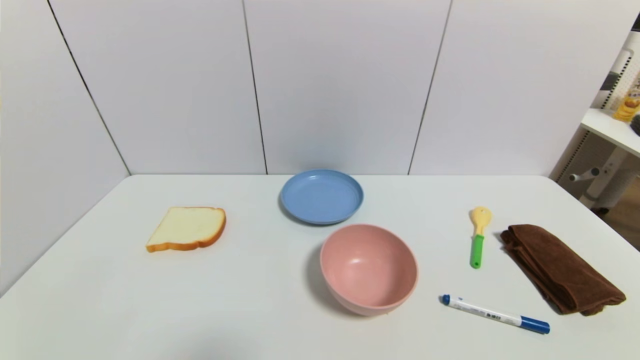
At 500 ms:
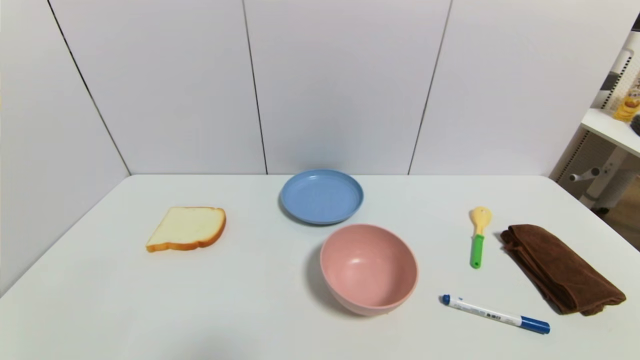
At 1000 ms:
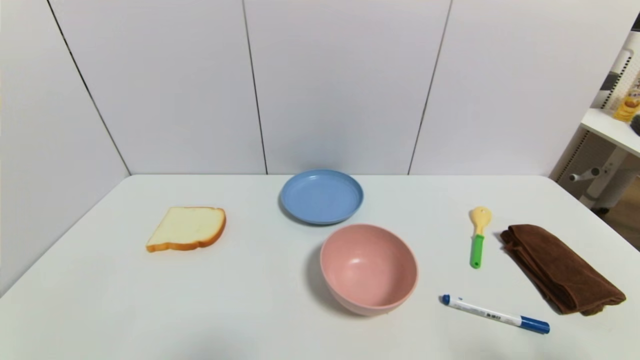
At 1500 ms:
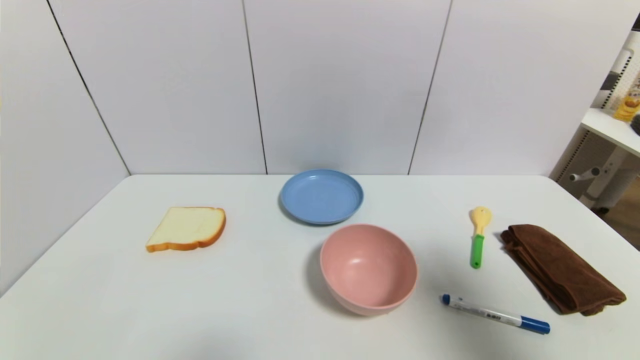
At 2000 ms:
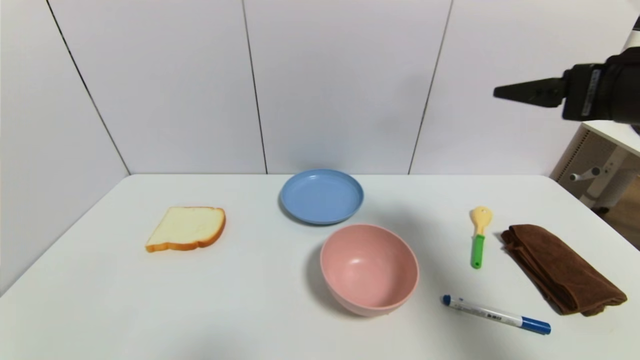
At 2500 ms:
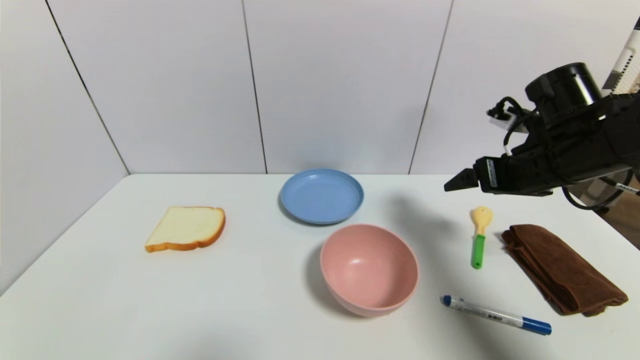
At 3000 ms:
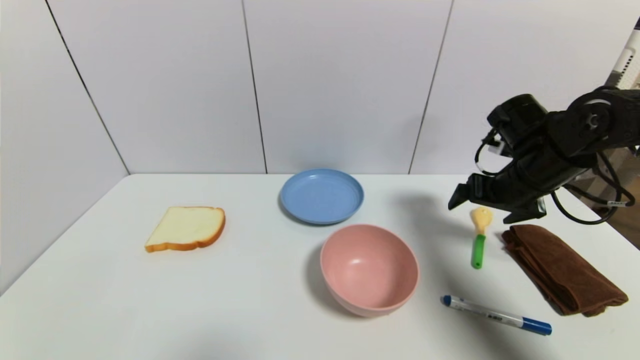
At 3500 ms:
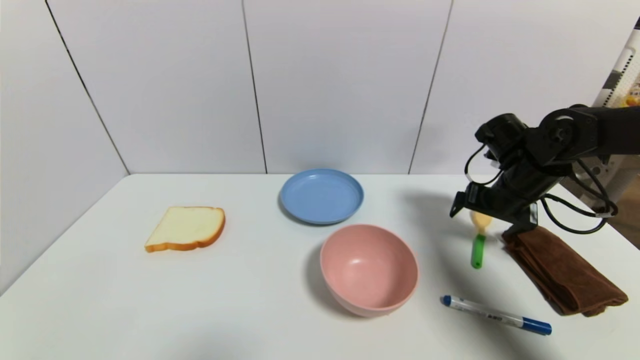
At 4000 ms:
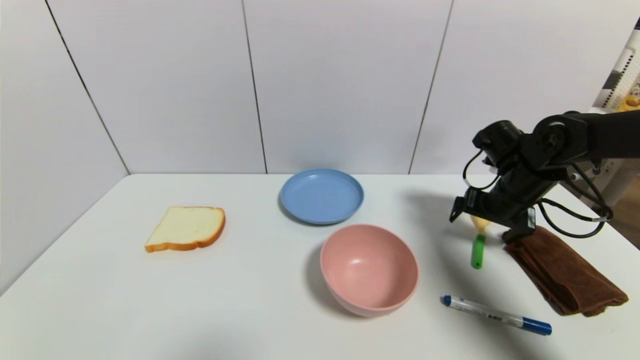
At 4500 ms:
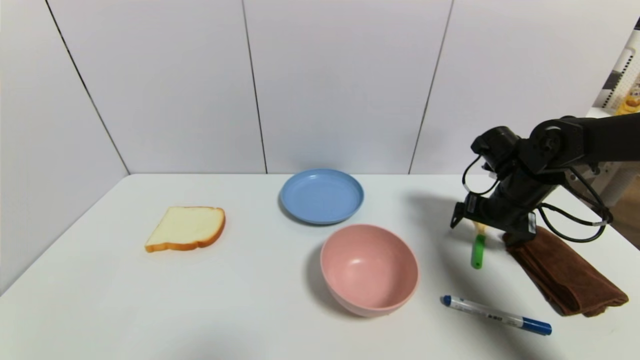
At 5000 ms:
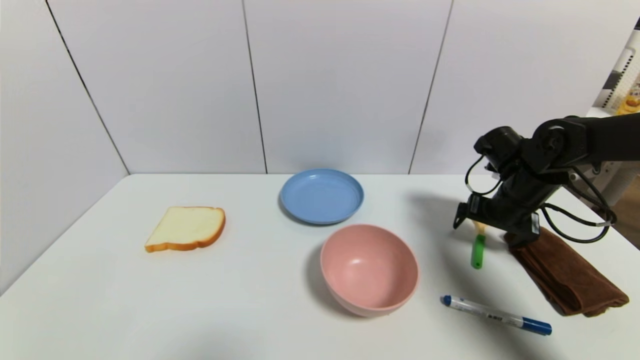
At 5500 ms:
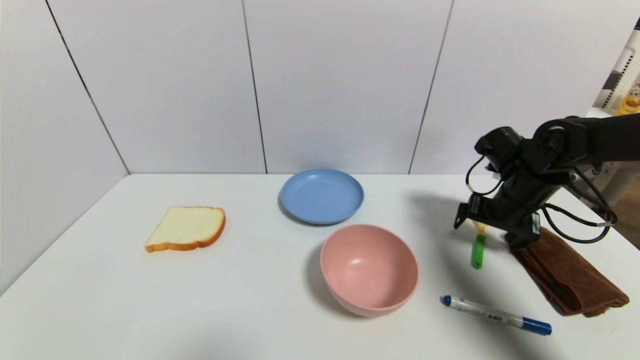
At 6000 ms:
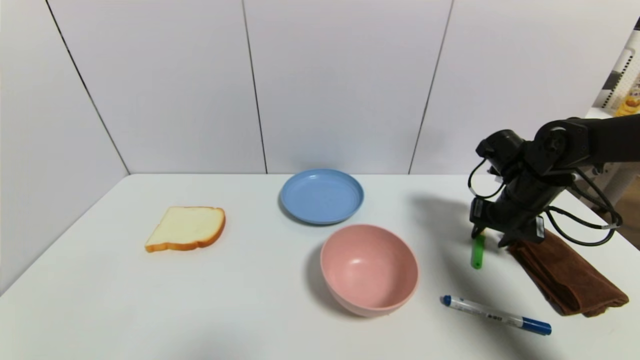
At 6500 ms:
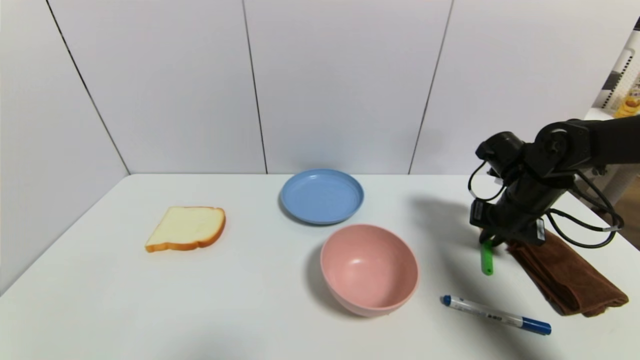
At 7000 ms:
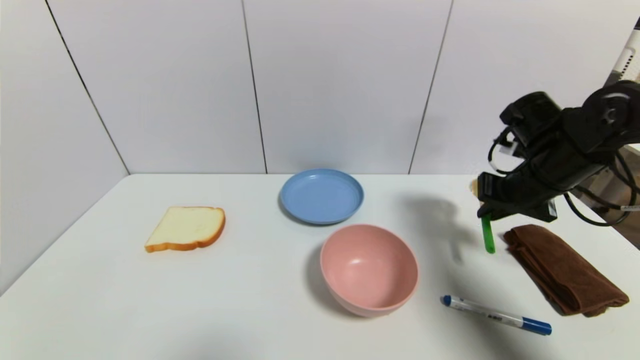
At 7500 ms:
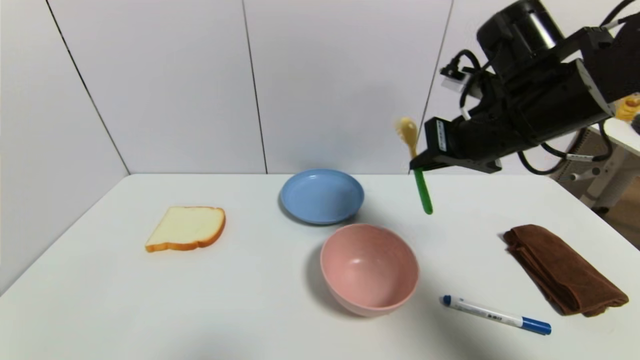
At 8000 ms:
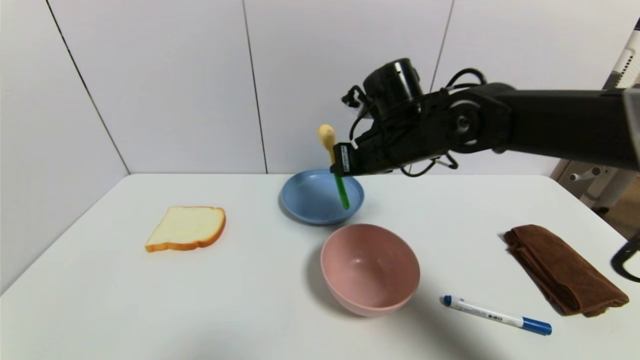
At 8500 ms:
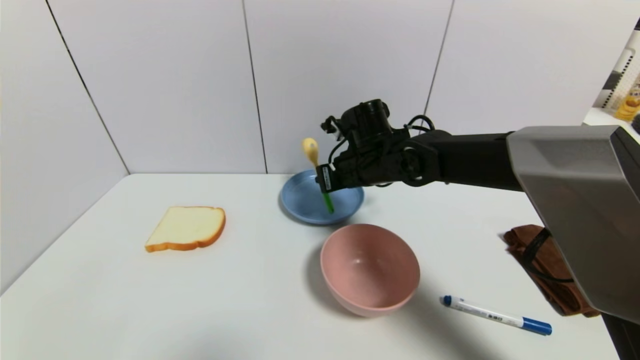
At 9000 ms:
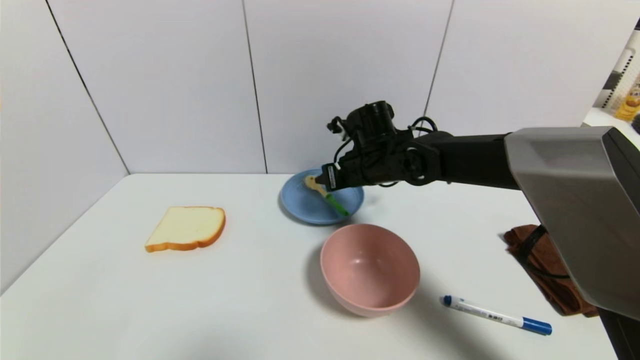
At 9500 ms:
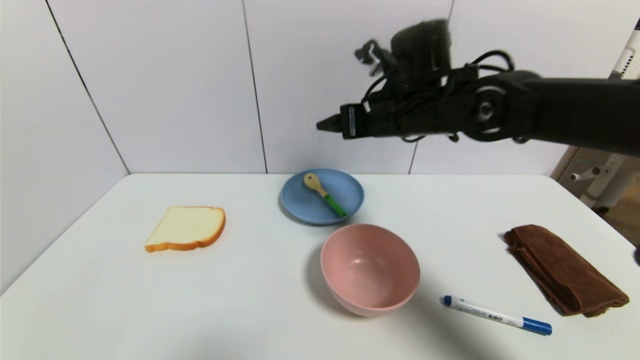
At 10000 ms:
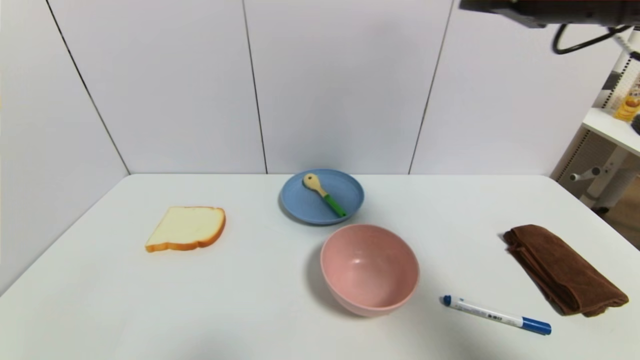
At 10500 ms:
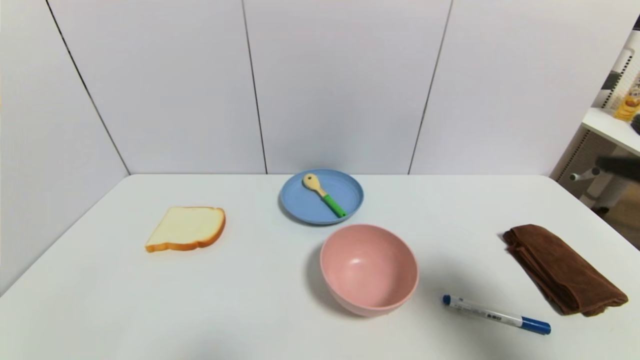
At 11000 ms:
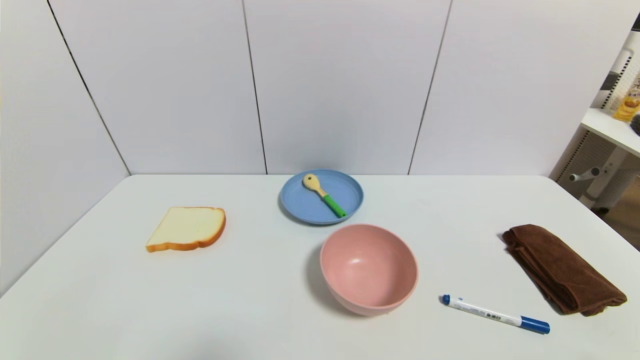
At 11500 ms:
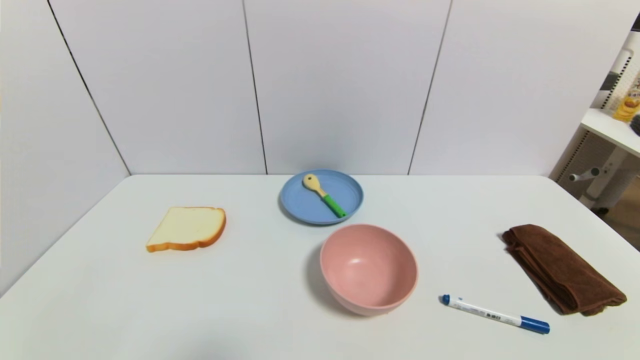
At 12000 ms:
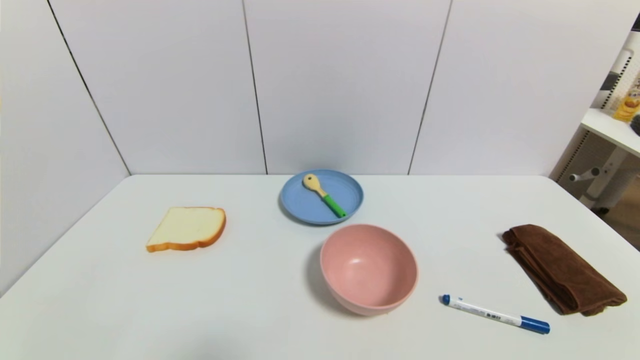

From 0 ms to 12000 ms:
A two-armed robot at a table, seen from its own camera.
Task of the whole recording: use a gripper to pick the target object and place on the blue plate.
Step, from 0 ms to 6500 ms: Grasp the Itchy scratcher with the right gripper.
Step, from 7000 ms to 9000 ms: Place the Itchy scratcher on the blue plate with the right gripper.
From 0 ms to 2000 ms: The right gripper shifts about 35 cm upward and forward.
From 2000 ms to 4000 ms: The right gripper is displaced downward and forward by approximately 20 cm.
From 4000 ms to 6000 ms: The right gripper closes up.
From 6000 ms to 8000 ms: The right gripper travels to the left and upward by some 25 cm, and closes its fingers.
From 8000 ms to 10000 ms: The right gripper travels upward, to the right and backward by roughly 25 cm, and opens.
From 10000 ms to 12000 ms: The right gripper moves downward and backward, about 40 cm.
